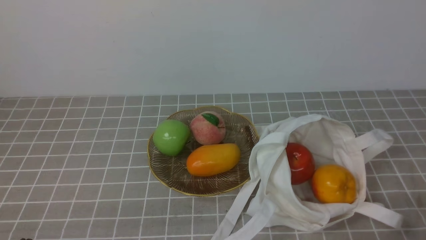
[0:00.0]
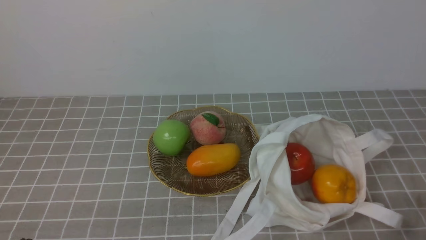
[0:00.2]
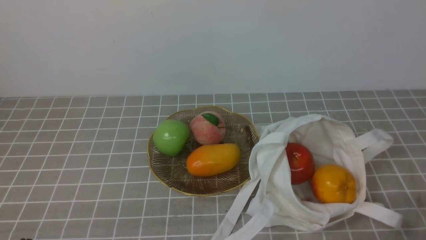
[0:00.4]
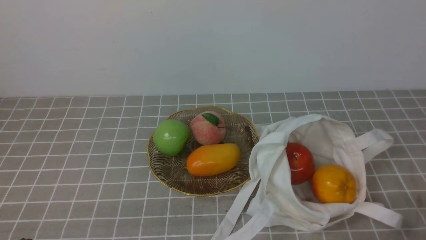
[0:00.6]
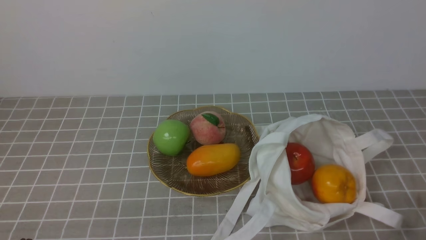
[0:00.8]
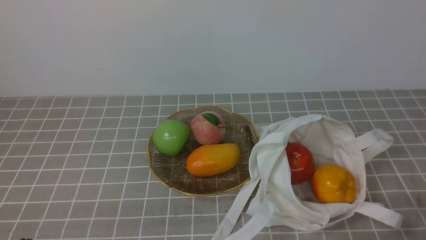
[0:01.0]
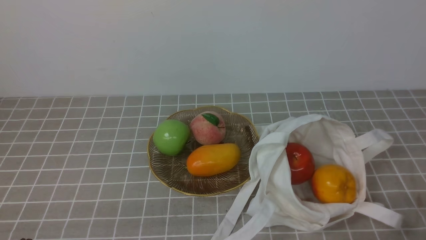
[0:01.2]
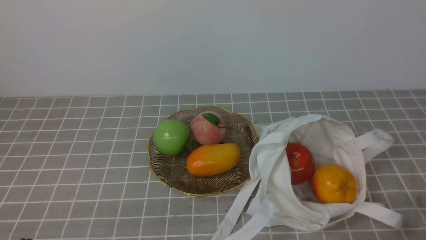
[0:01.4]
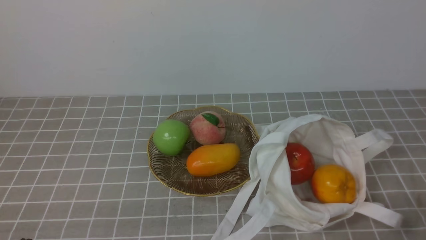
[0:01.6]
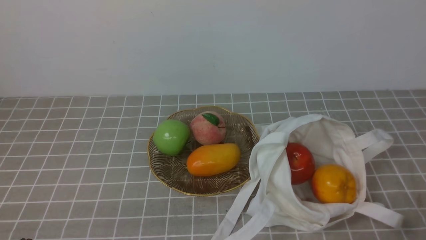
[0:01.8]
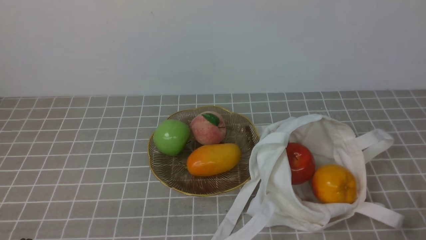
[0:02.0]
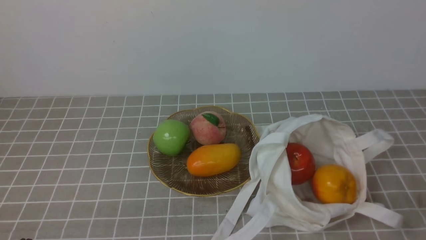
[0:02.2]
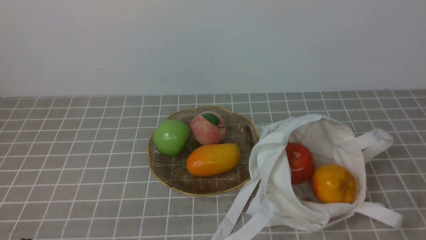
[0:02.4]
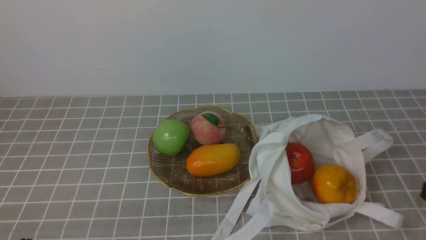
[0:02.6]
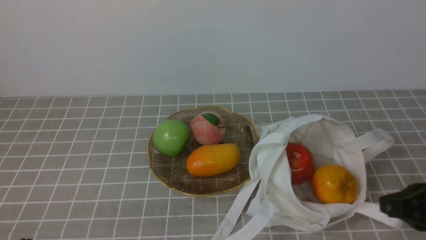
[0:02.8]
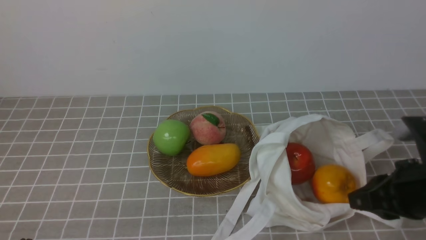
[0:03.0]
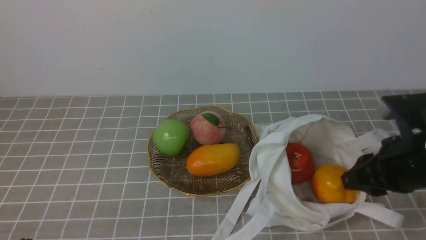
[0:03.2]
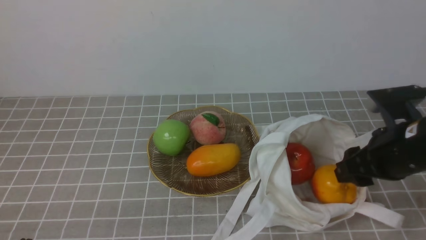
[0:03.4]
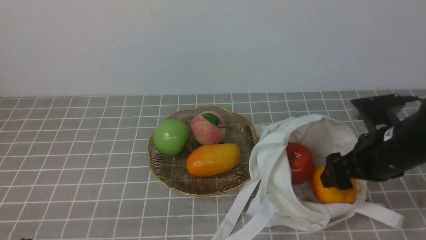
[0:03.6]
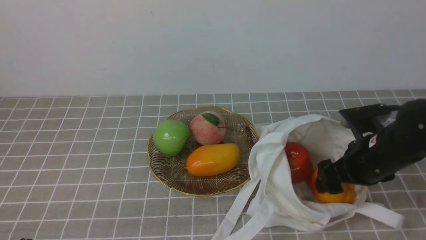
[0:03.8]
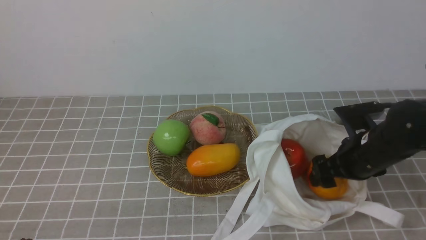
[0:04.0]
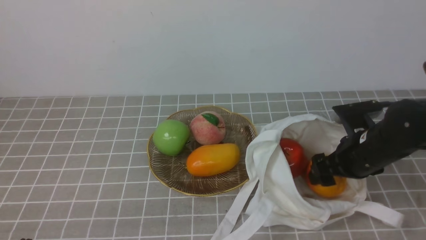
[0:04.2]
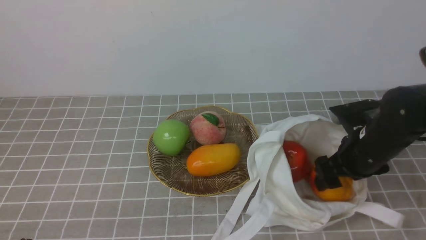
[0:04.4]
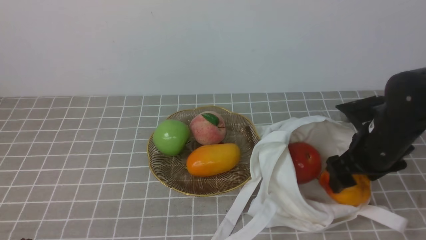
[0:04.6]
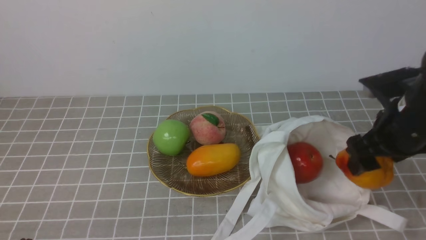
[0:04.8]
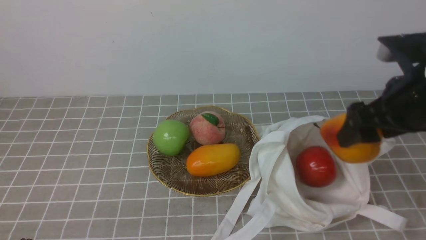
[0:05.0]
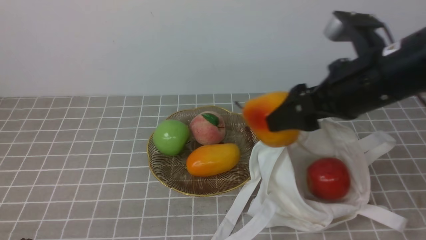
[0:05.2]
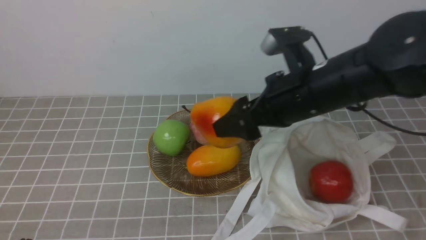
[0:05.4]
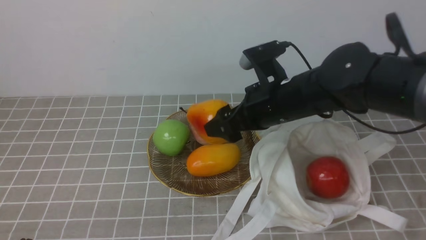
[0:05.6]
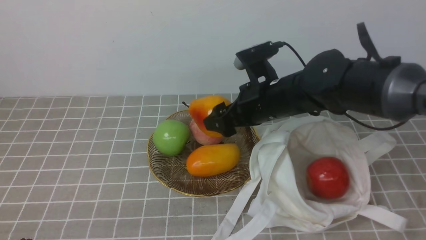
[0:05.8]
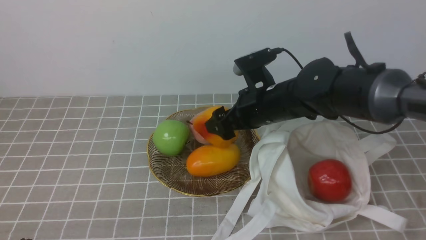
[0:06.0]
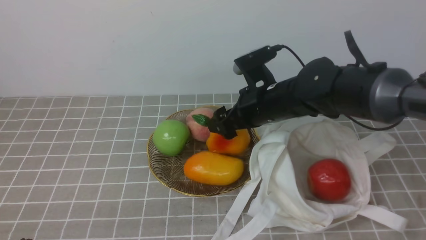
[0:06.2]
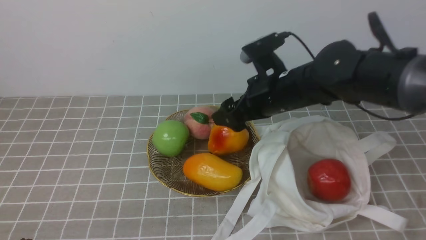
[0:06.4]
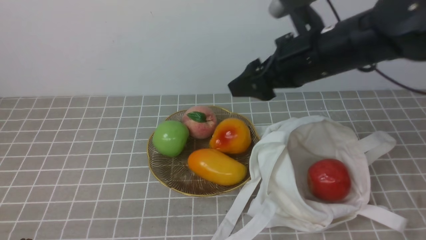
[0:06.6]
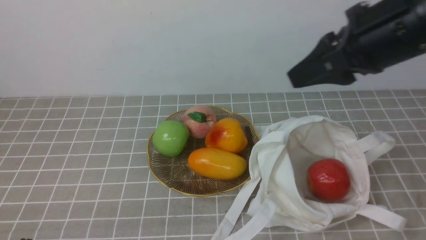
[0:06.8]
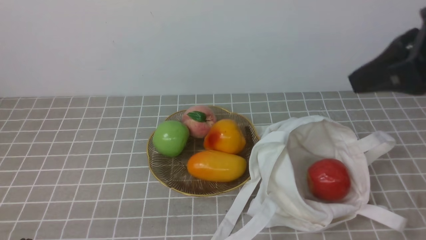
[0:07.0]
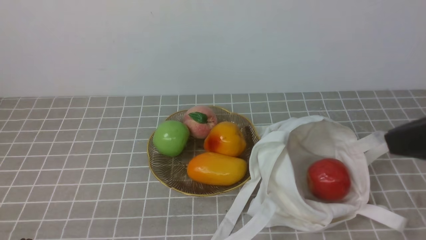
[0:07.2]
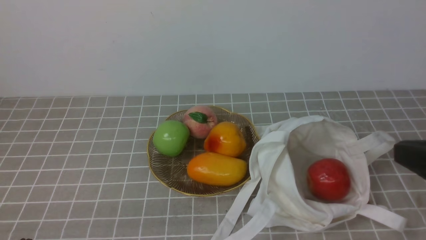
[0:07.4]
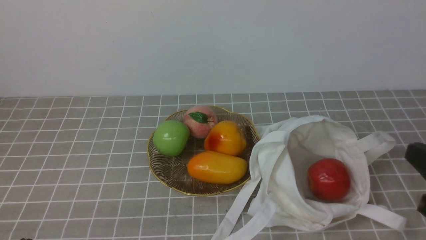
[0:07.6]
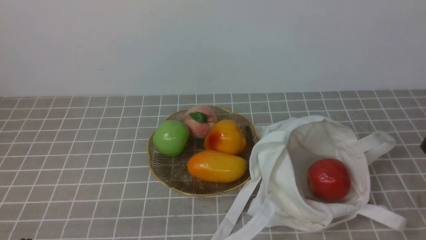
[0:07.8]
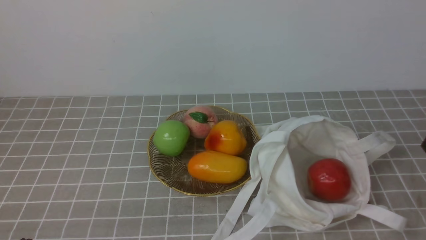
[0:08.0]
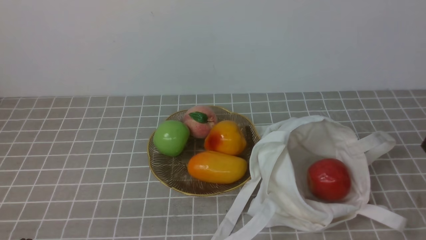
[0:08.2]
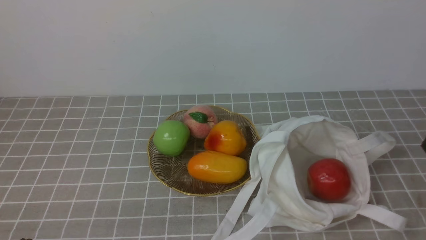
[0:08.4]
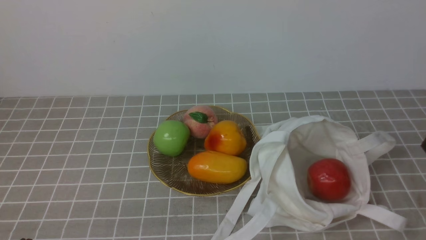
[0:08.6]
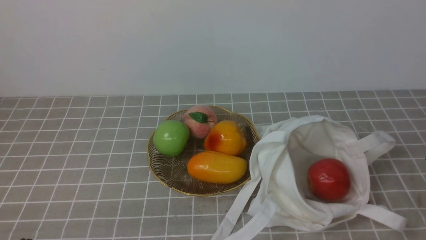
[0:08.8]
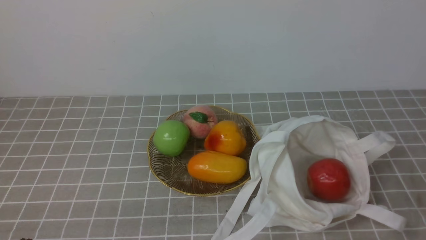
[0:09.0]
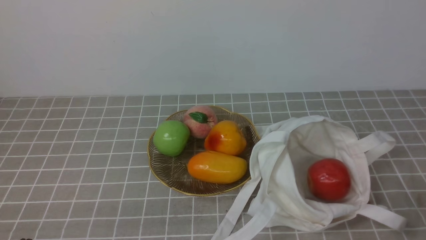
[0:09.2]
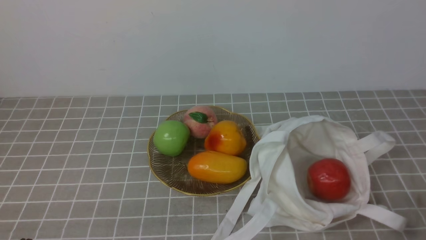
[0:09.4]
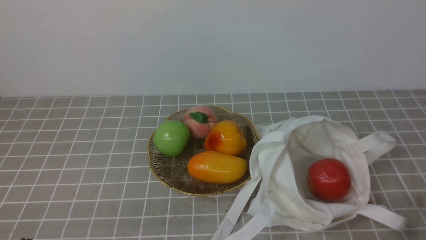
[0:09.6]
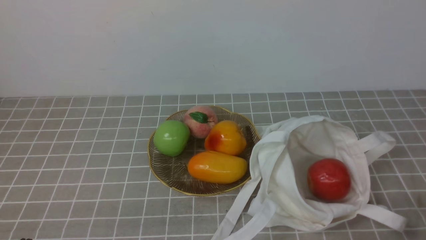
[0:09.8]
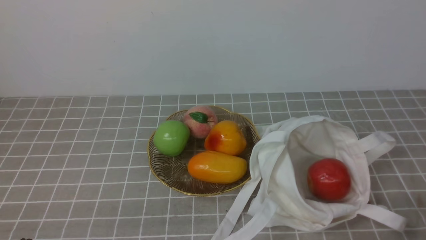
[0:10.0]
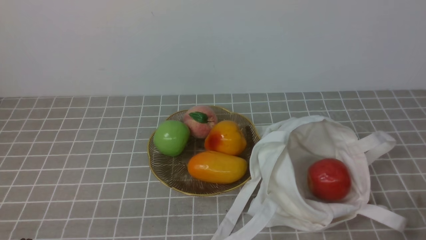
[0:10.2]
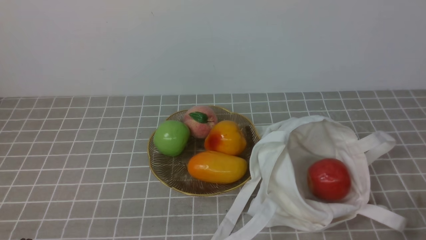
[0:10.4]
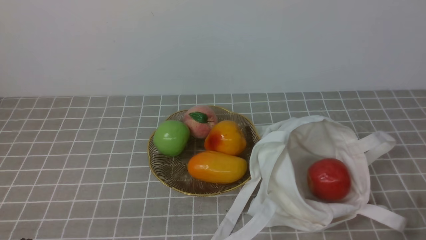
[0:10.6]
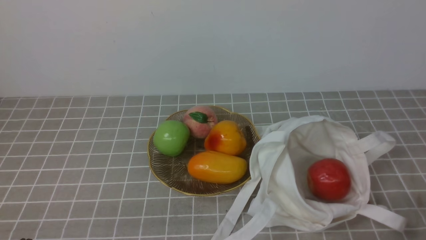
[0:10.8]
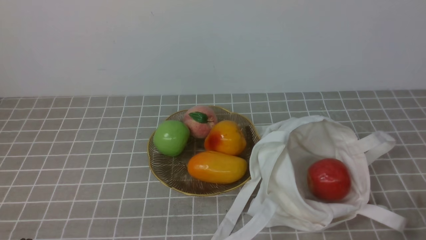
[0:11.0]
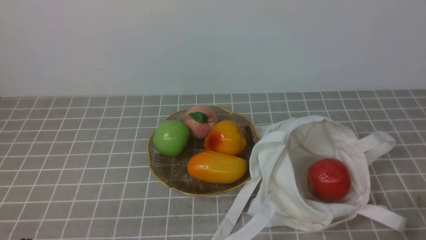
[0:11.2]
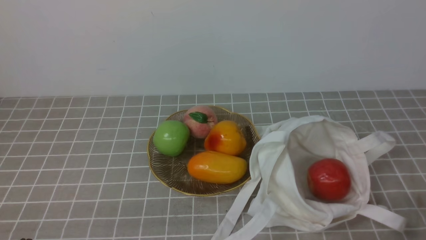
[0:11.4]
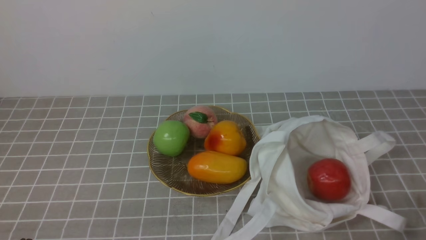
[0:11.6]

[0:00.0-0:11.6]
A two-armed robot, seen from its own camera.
Step, 0:00.0 to 0:04.6: use the right arm to grab a pear from the bag.
Step, 0:04.8 to 0:06.4: use the right arm to put the pear into the empty plate on the left.
0:00.0 to 0:01.4: Neither gripper changes place.
0:01.4 to 0:02.8: The right gripper goes roughly 15 cm forward and upward.
0:02.8 to 0:04.4: The right gripper goes some 15 cm forward and downward, and opens up.
0:04.4 to 0:05.8: The right gripper heads to the left, covering some 15 cm.
0:05.8 to 0:07.2: The right gripper heads backward, to the right and upward, covering about 30 cm, and closes its fingers.
0:07.2 to 0:08.8: The right gripper heads downward, covering about 15 cm.
0:10.2 to 0:11.6: Neither gripper changes place.
